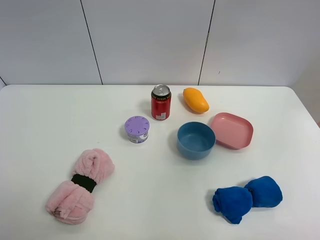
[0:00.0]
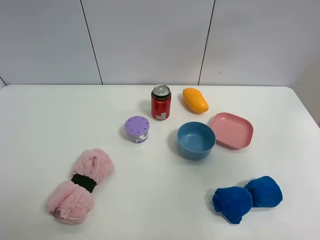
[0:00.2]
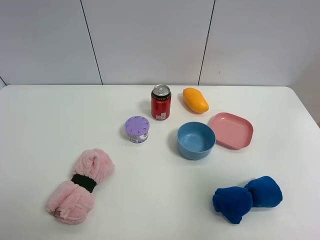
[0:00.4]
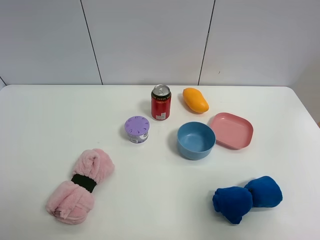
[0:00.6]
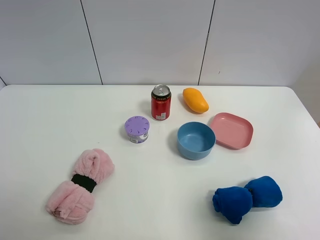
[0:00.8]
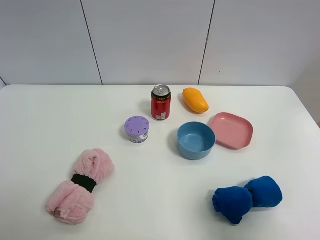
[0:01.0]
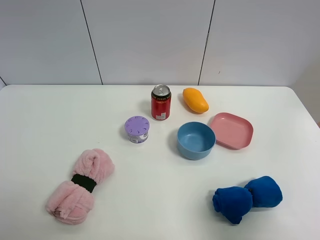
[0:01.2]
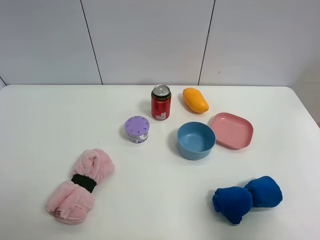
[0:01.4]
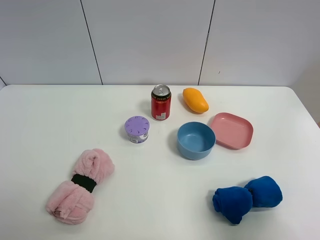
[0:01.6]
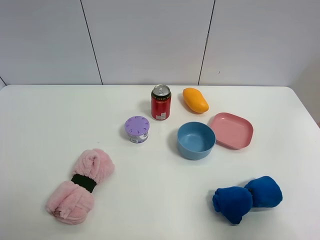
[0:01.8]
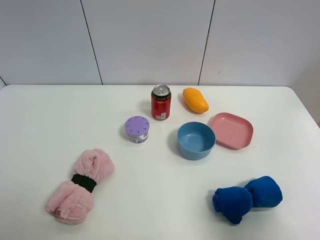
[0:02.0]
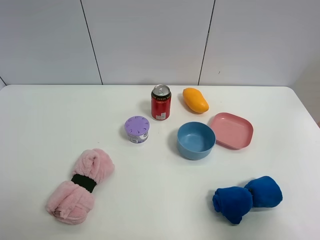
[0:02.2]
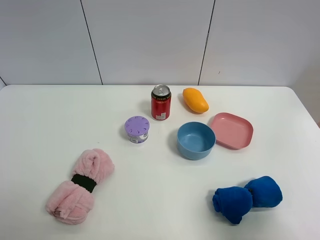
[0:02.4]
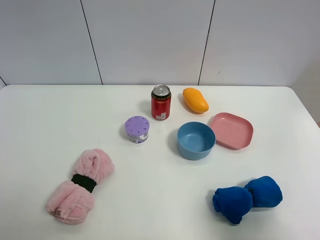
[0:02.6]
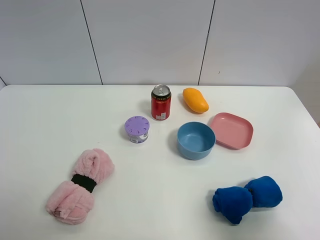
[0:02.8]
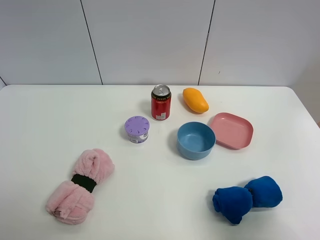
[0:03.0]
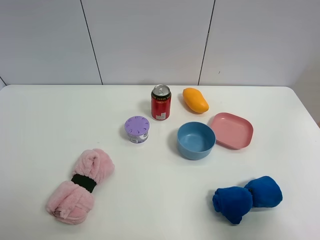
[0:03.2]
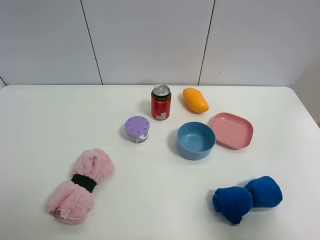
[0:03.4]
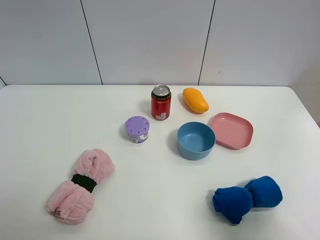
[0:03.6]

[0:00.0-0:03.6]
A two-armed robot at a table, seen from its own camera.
Task of the whole recording: the gripper move the object.
0:00.0 to 0:01.8: The right gripper is displaced downward and backward by about 20 cm.
0:01.8 to 0:03.6: Neither gripper changes place.
